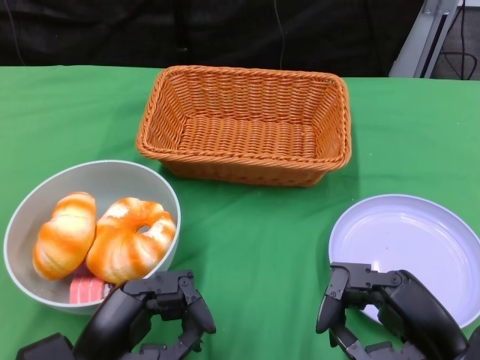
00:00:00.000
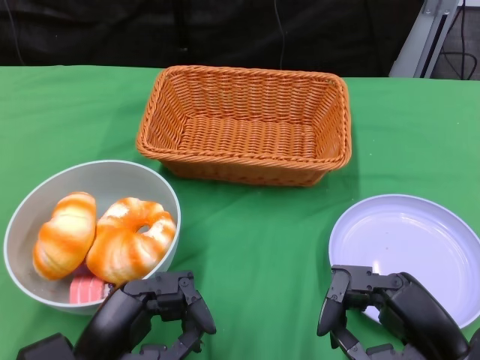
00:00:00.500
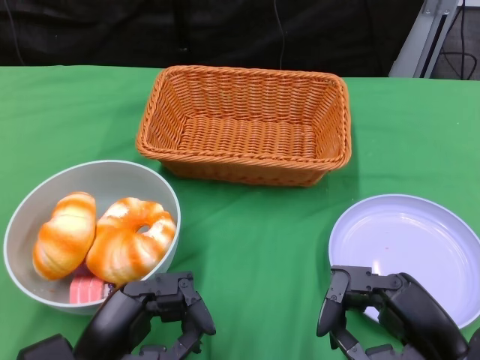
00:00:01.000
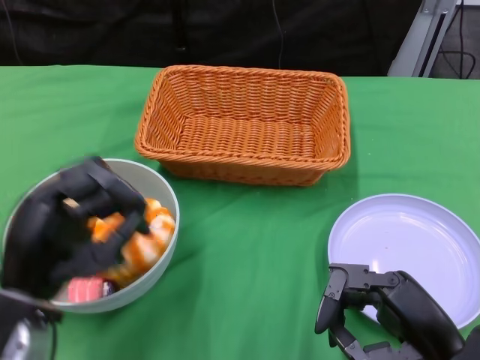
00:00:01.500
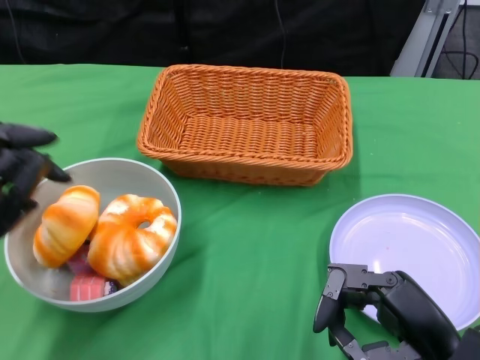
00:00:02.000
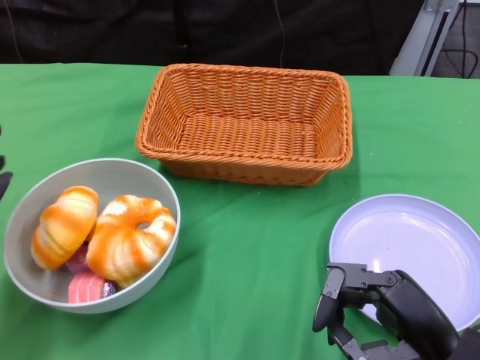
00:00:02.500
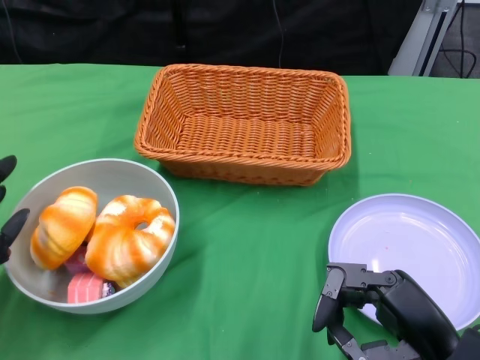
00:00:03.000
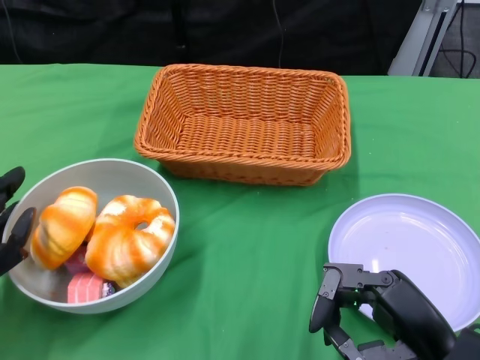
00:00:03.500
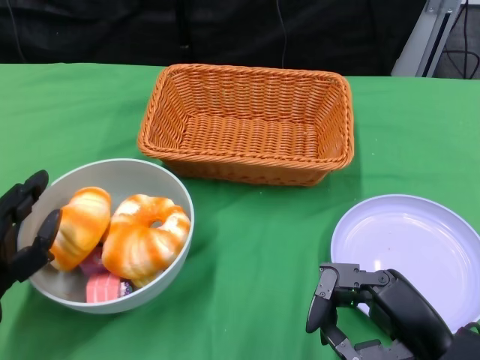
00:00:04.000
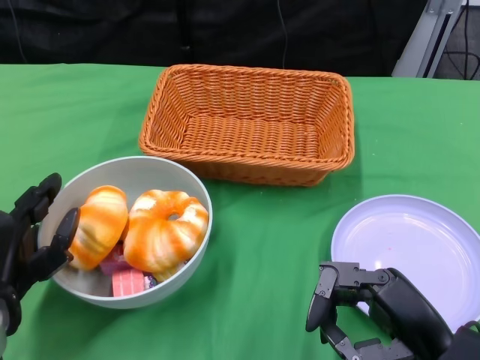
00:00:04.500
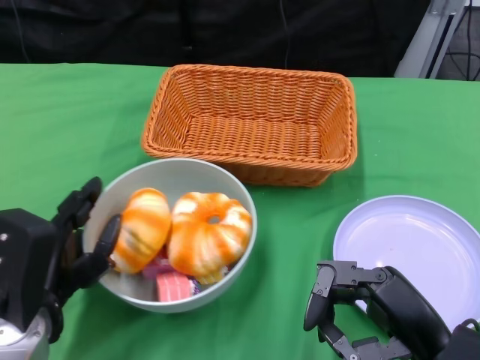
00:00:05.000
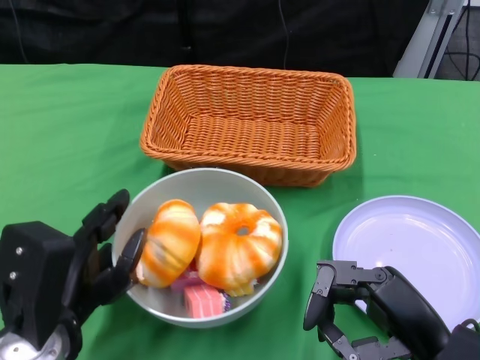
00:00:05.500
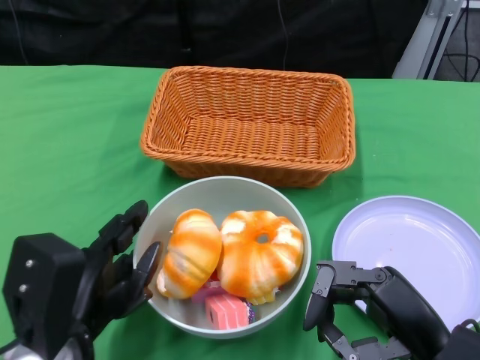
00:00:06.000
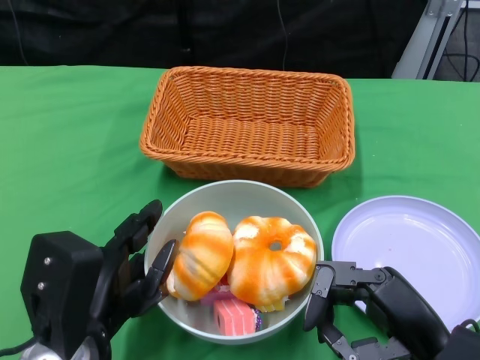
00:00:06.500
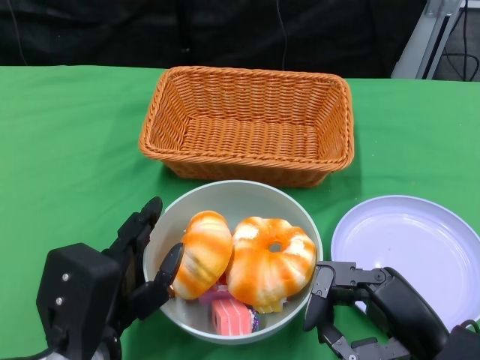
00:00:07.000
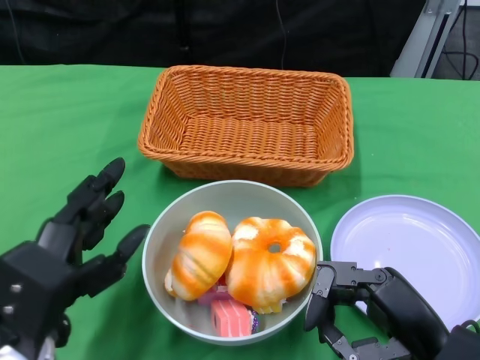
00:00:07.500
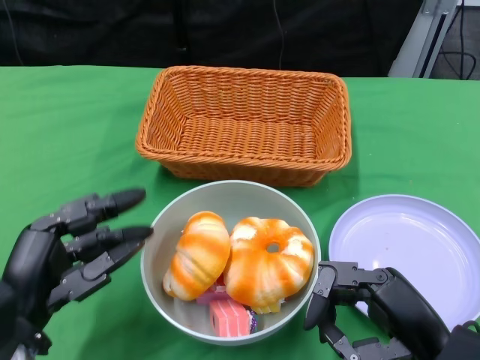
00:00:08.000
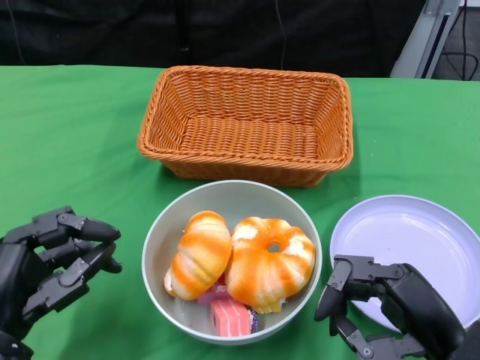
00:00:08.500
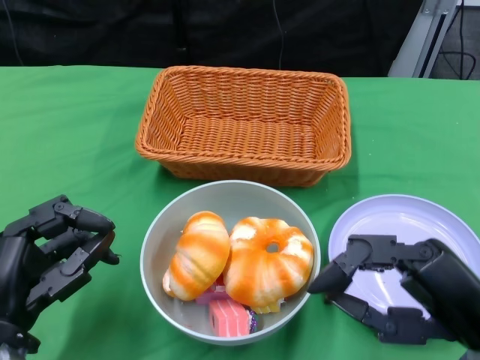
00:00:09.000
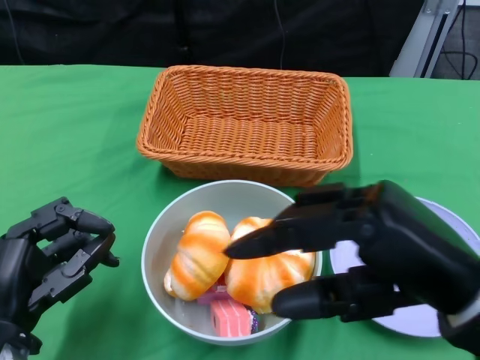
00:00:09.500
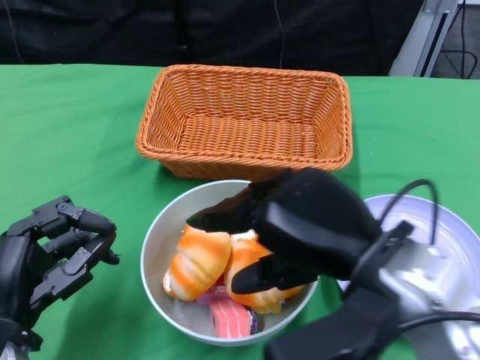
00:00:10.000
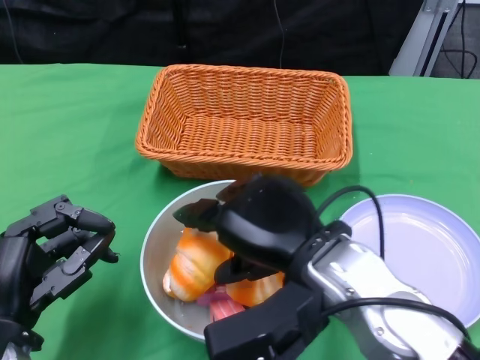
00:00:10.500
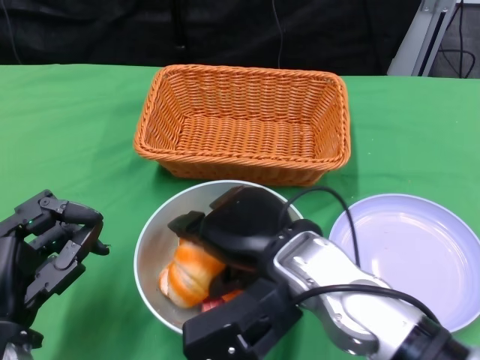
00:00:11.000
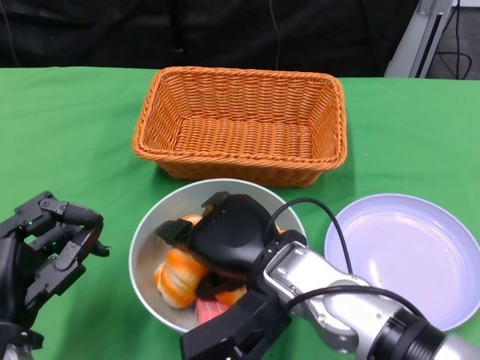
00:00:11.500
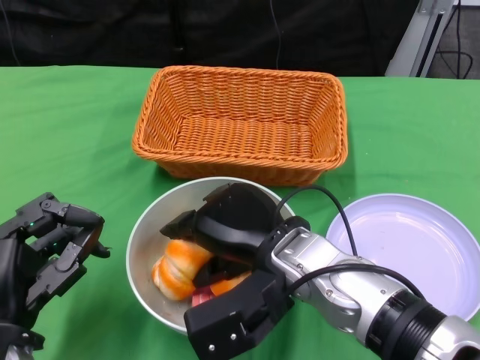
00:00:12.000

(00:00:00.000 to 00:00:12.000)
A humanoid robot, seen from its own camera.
Step, 00:00:00.000 - 00:00:07.000: Push the bowl to the center of the table using the left gripper.
00:00:02.000 - 00:00:04.000: The left hand is displaced downward by roughly 5 cm.
00:00:04.000 - 00:00:06.000: The left hand goes some 10 cm to the right.
00:00:08.000 - 00:00:10.000: The right hand shifts some 15 cm upward and to the left.
00:00:10.000 - 00:00:12.000: The right hand shifts roughly 10 cm to the left, downward and forward.

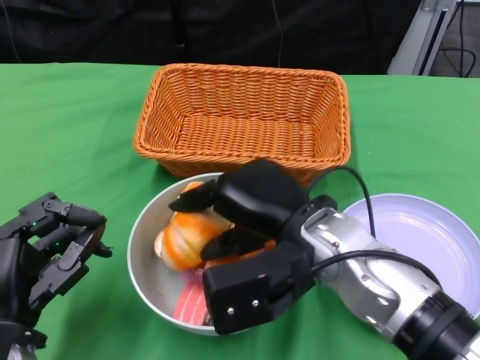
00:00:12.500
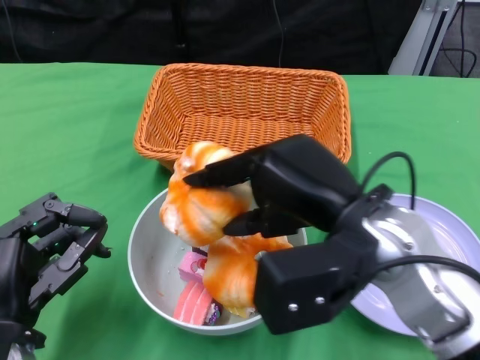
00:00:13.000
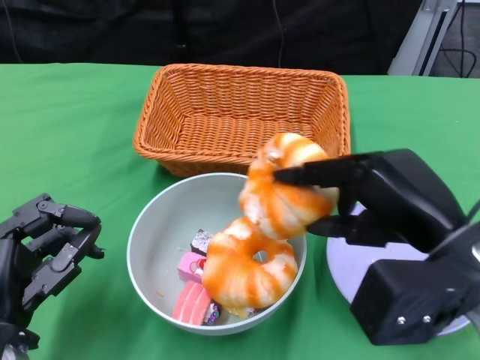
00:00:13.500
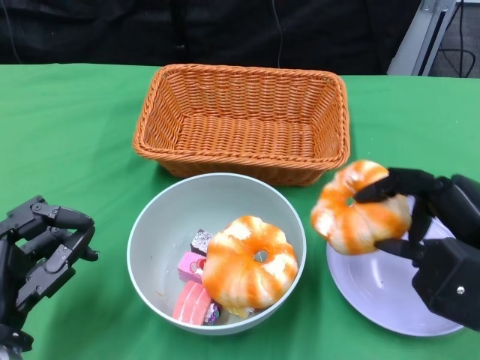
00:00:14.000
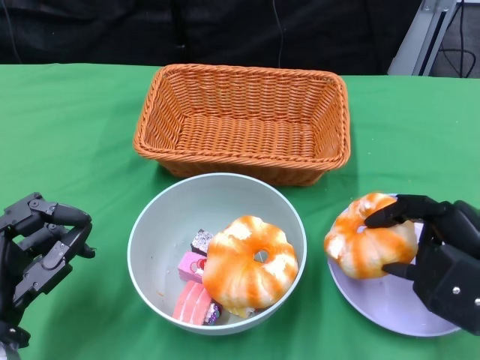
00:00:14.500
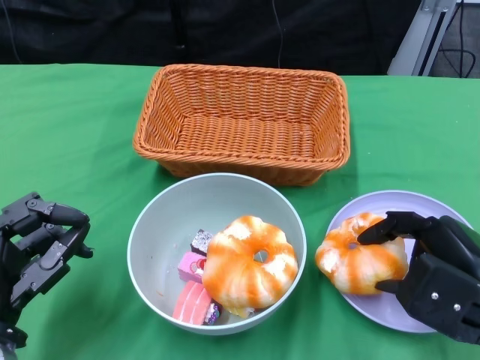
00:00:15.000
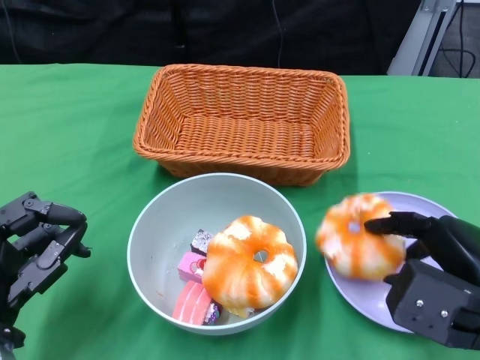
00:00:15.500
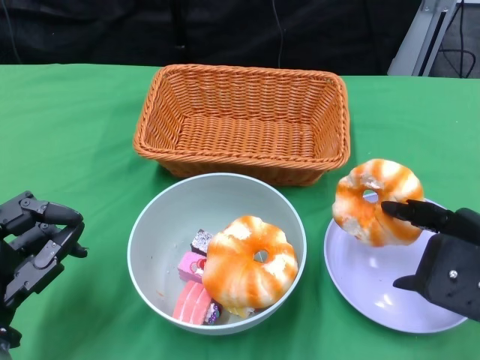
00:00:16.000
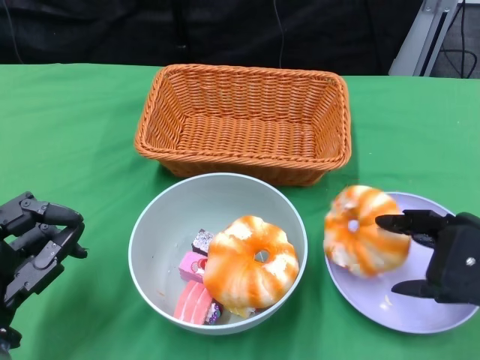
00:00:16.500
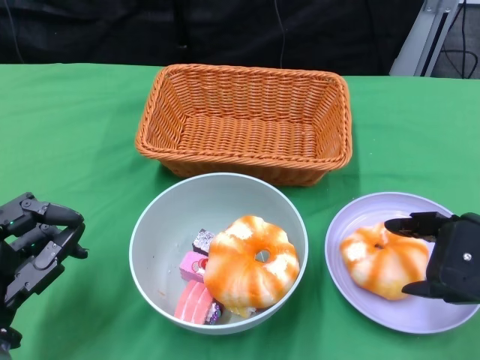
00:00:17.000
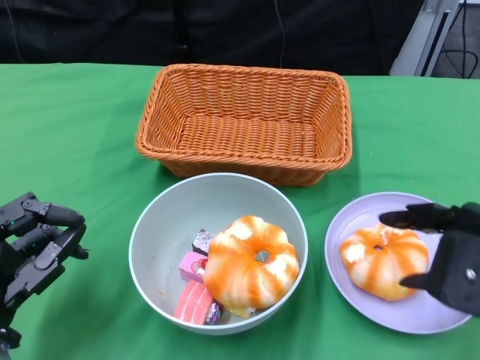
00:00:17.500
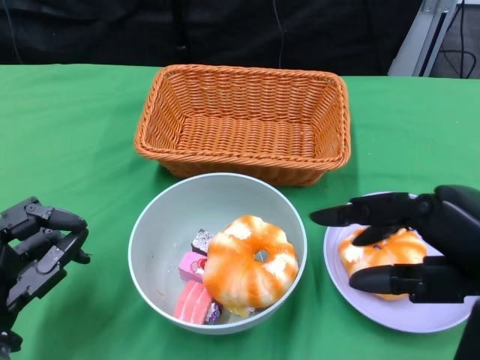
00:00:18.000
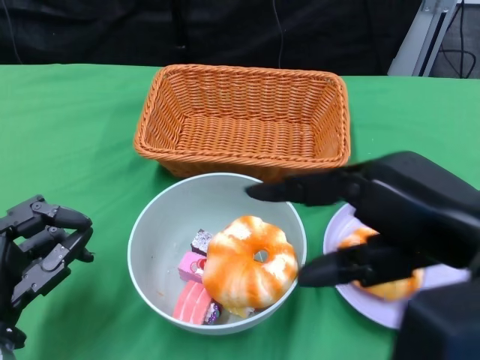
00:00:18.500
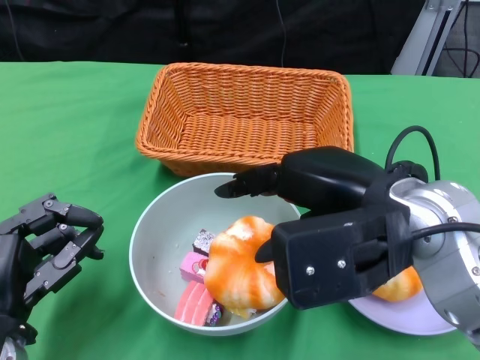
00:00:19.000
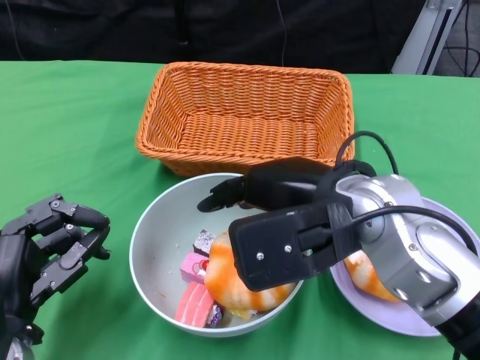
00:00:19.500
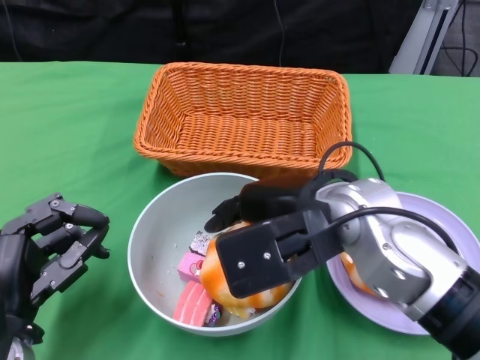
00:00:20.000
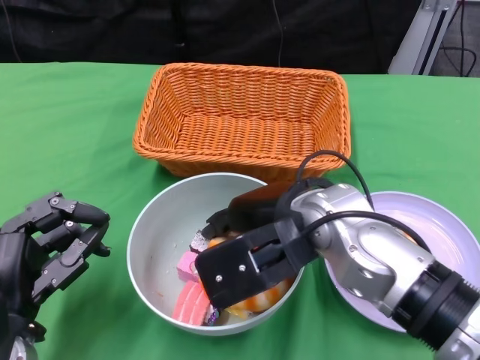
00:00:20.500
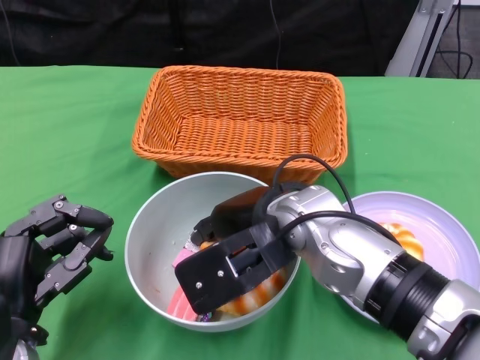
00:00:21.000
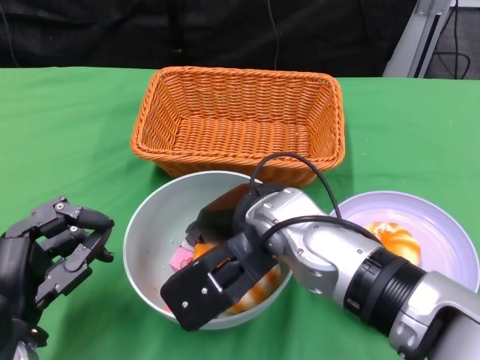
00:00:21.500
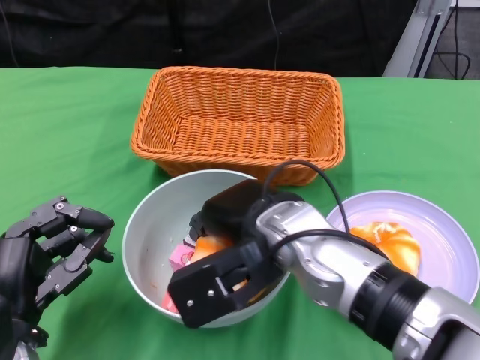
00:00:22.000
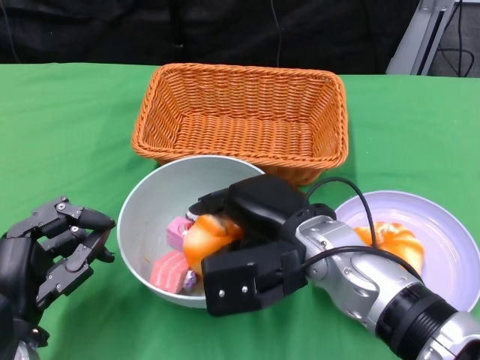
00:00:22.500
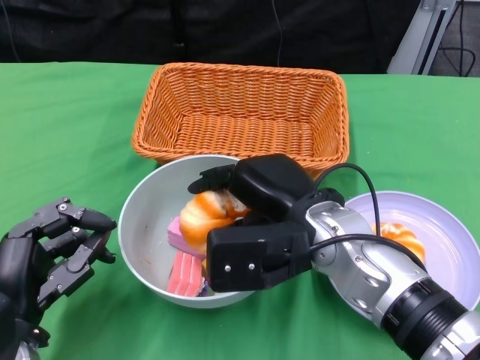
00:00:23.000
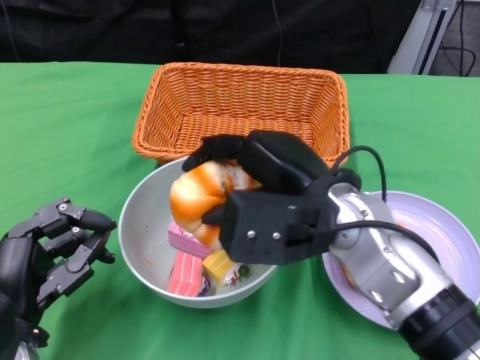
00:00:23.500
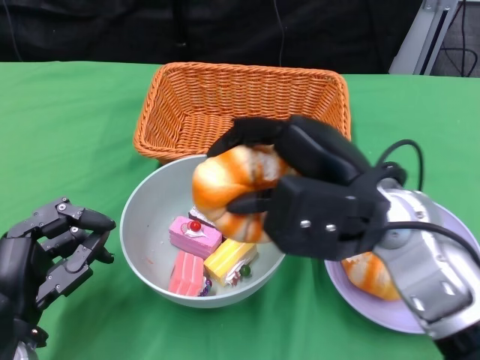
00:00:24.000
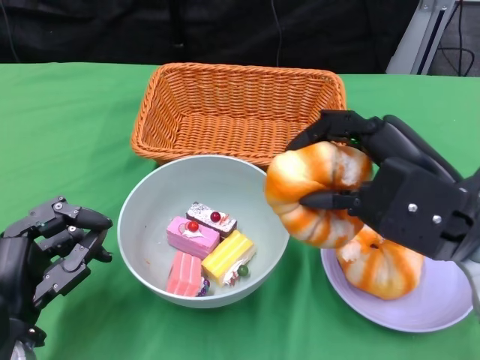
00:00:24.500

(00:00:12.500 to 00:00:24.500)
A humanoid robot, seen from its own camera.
00:00:12.500 - 00:00:14.500: The right hand shifts approximately 20 cm to the right.
00:00:14.500 - 00:00:16.500: The right hand goes approximately 5 cm upward.
00:00:16.500 - 00:00:18.500: The right hand travels upward and to the left by about 10 cm.
00:00:18.500 - 00:00:20.500: The right hand shifts roughly 20 cm to the left, forward and downward.
00:00:20.500 - 00:00:22.500: The right hand moves downward, roughly 5 cm.
00:00:22.500 - 00:00:24.500: The right hand travels to the right and upward by about 15 cm.

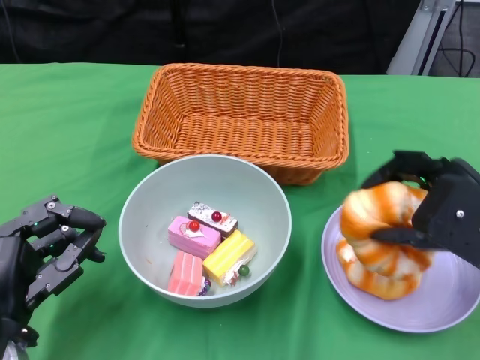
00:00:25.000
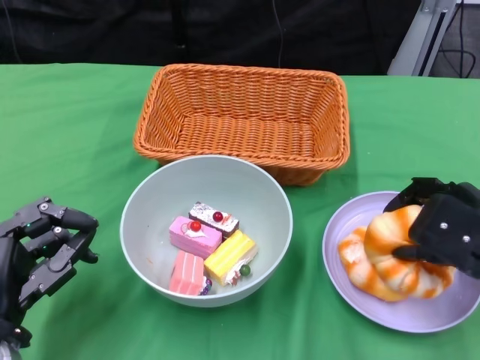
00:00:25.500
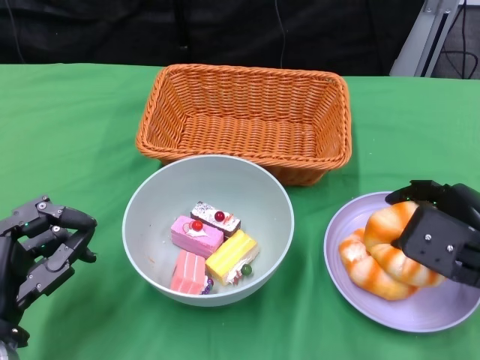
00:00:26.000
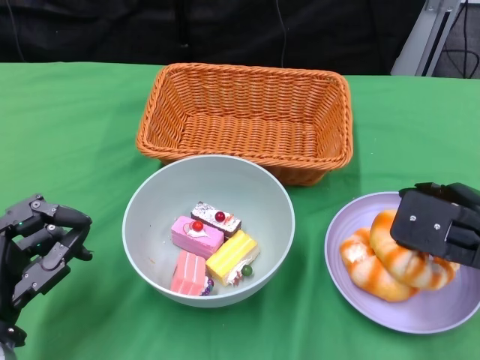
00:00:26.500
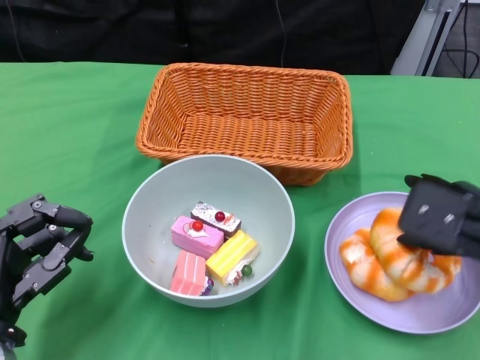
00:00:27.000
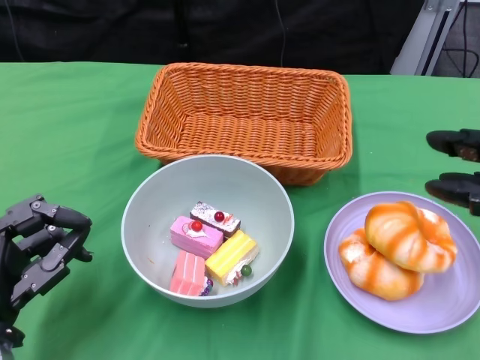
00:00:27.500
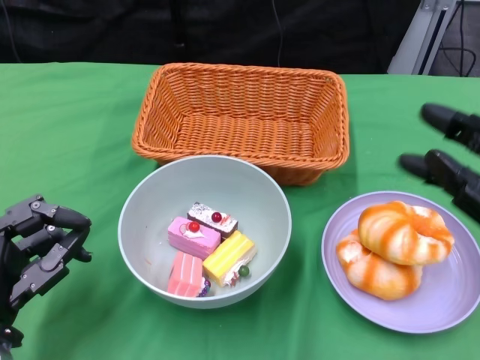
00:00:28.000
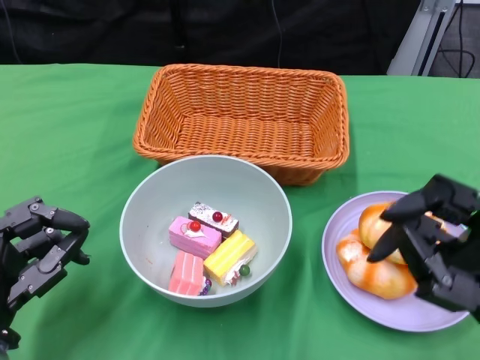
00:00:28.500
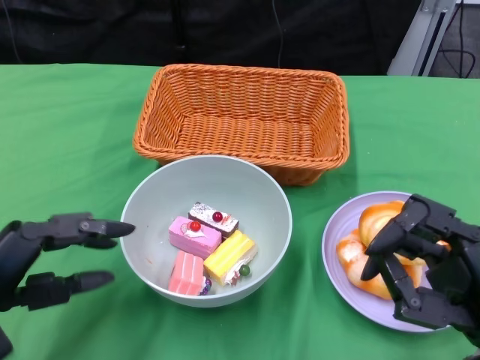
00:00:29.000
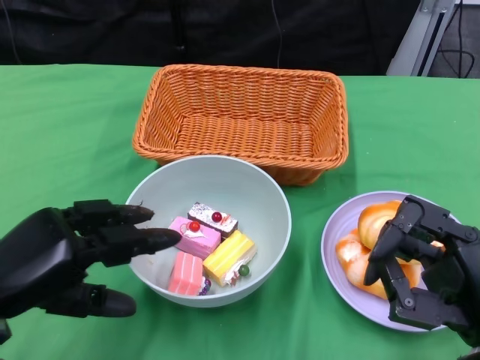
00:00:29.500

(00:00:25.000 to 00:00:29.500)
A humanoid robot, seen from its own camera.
Step, 00:00:25.000 - 00:00:27.000: Pick up the bread with the right gripper and place it on the plate.
00:00:27.000 - 00:00:29.500: The right hand heads backward, covering about 10 cm. The left hand shifts about 5 cm upward.
